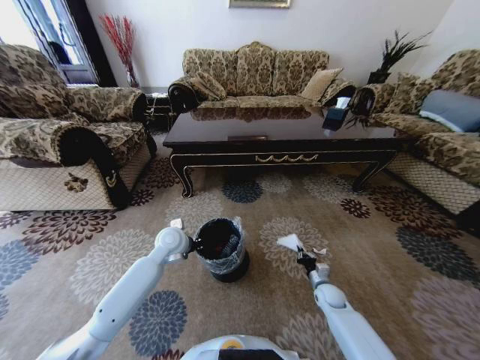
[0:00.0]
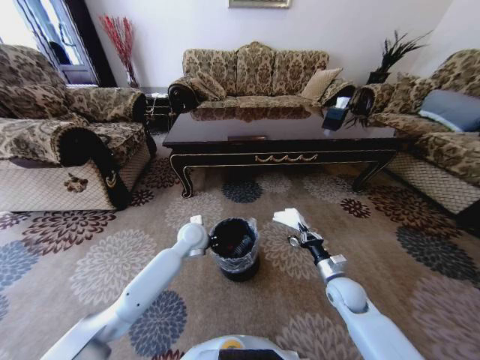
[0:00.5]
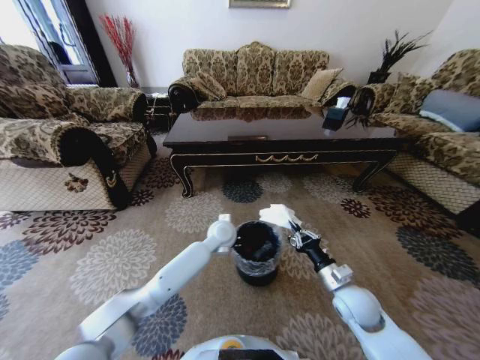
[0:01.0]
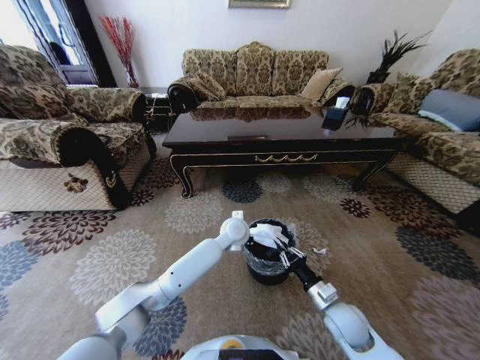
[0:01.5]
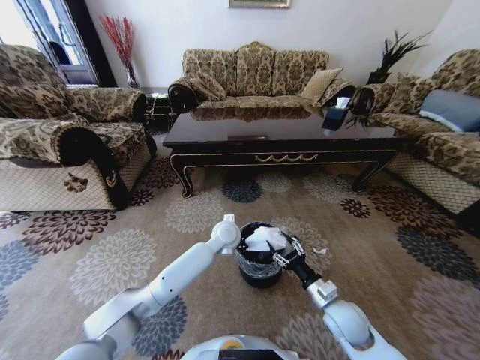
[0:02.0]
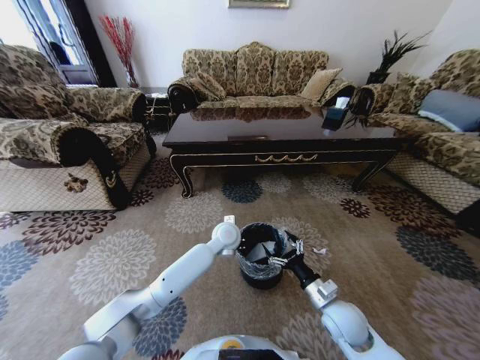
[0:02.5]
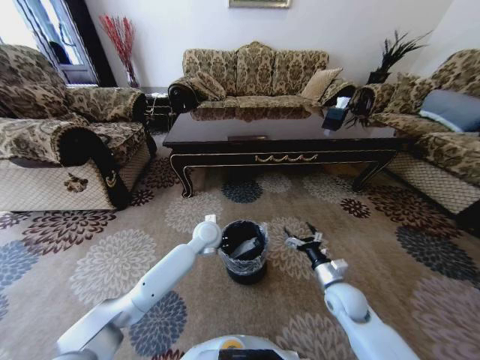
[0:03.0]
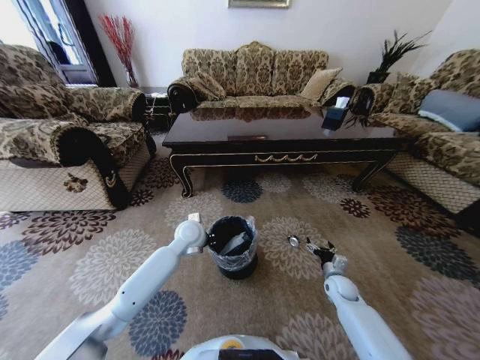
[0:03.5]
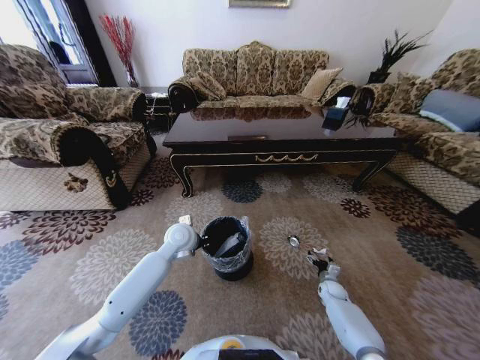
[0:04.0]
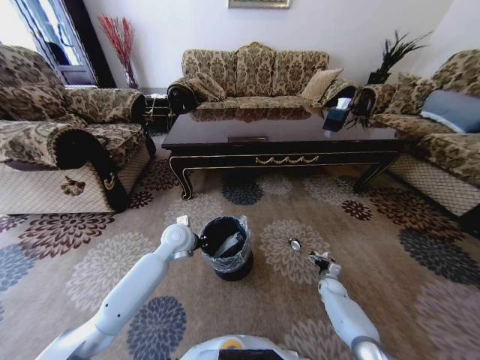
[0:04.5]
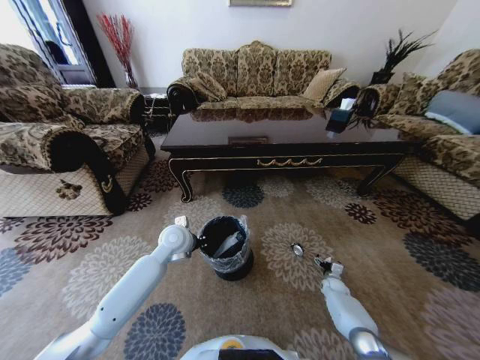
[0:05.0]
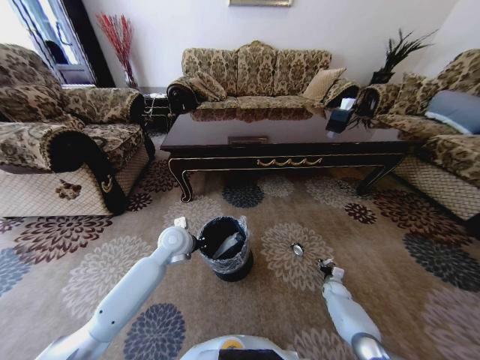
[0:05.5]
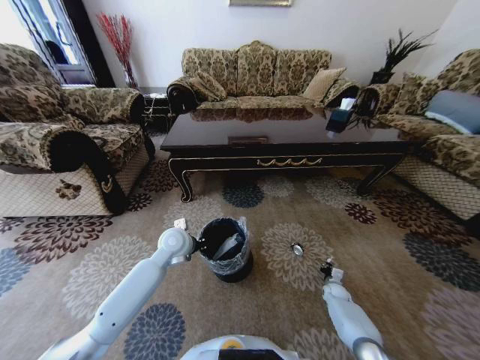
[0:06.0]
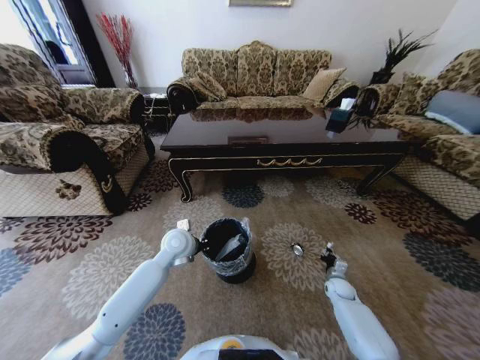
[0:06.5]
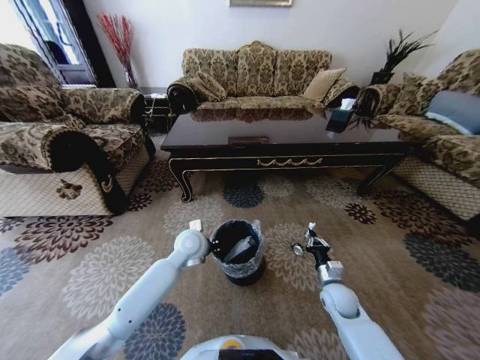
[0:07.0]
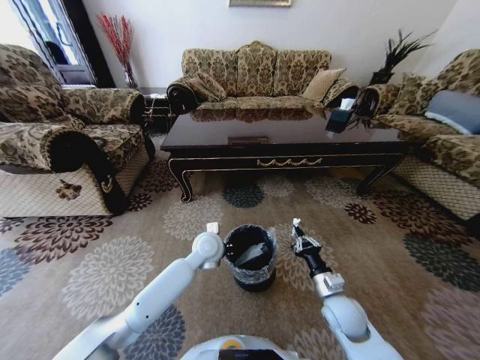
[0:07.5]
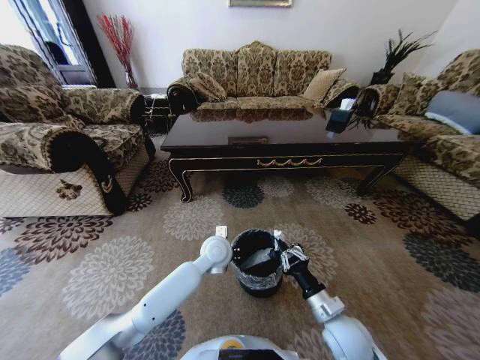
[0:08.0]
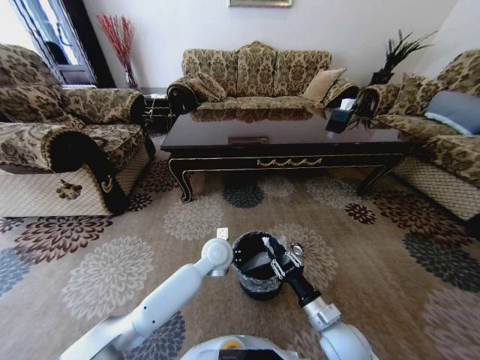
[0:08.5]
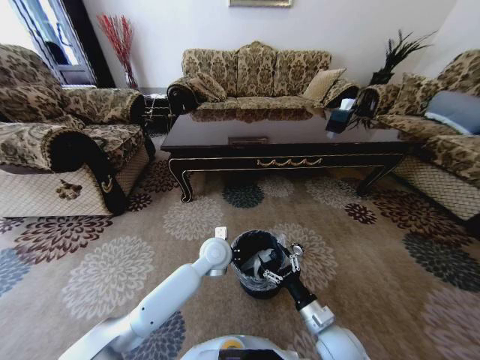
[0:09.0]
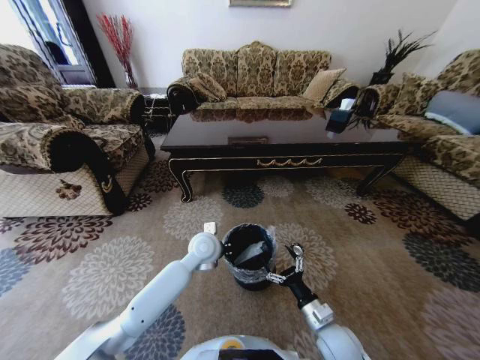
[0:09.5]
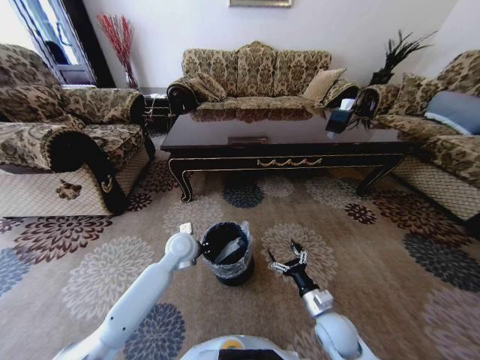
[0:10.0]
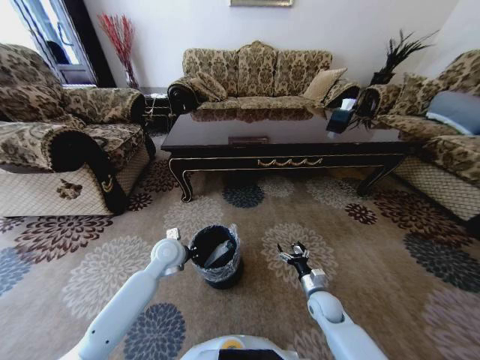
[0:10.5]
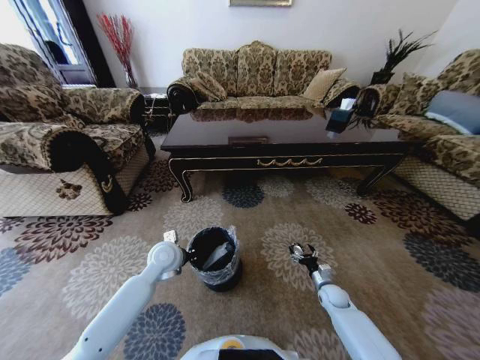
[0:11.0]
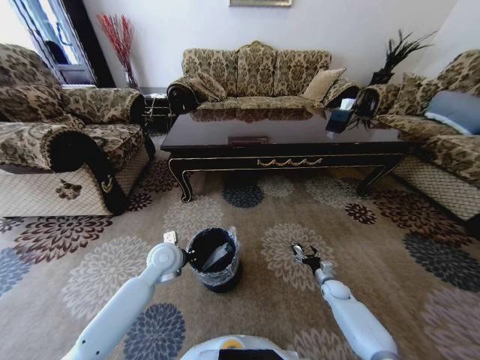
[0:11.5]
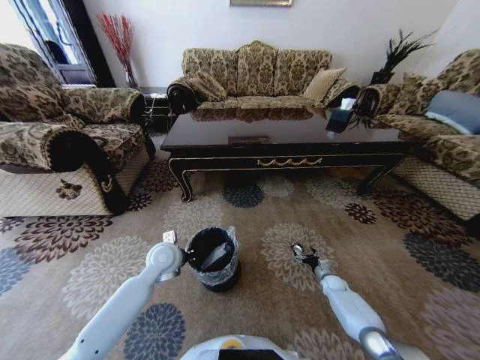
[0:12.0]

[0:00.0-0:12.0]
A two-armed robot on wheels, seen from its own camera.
Task of the whole recording: Move to the front of the table and pick up the trash from the floor, then place it into the trash bin.
0:00.0 to 0:02.0: The left gripper moves to the right, some 15 cm. The right gripper is displaced upward, backward and to the left by about 20 cm, and opens up.
0:02.0 to 0:04.0: The right gripper shifts some 30 cm downward, to the right and forward, and opens. The left gripper goes some 15 cm to the left.
0:04.0 to 0:06.0: The right gripper closes up.
0:06.0 to 0:08.0: The right gripper travels upward, to the left and backward by approximately 35 cm. The left gripper moves to the right, some 10 cm.
0:08.0 to 0:10.0: The right gripper heads downward, covering some 5 cm, and opens its fingers. The left gripper goes approximately 10 cm to the left.
0:10.0 to 0:12.0: The left gripper ends up roughly 5 cm from where it was, while the right gripper goes about 30 cm forward, downward and to the right.

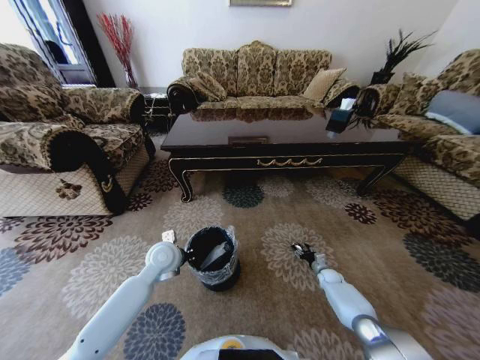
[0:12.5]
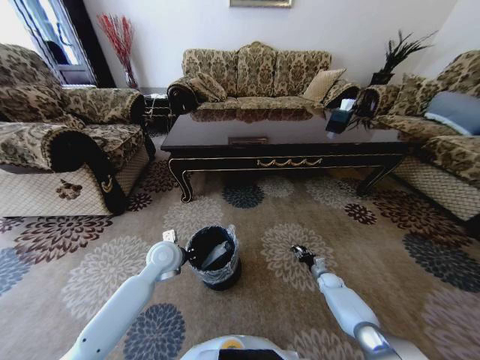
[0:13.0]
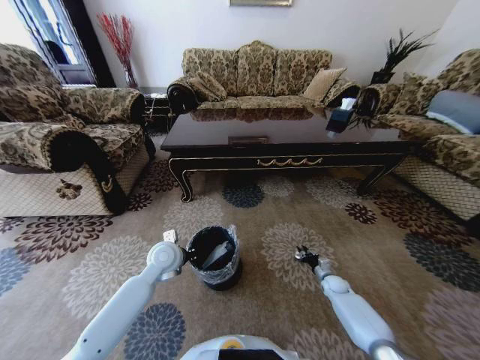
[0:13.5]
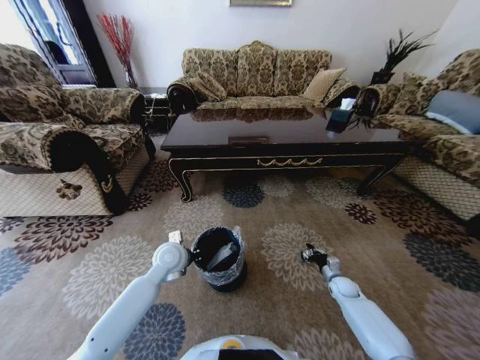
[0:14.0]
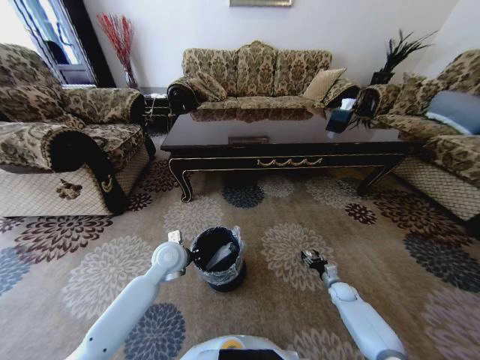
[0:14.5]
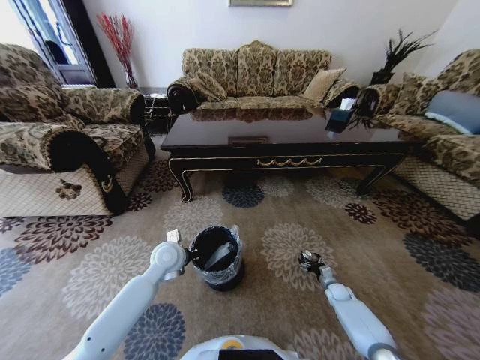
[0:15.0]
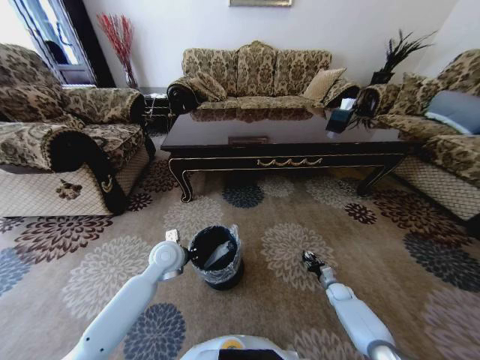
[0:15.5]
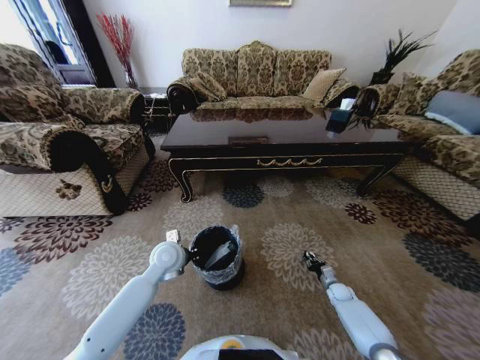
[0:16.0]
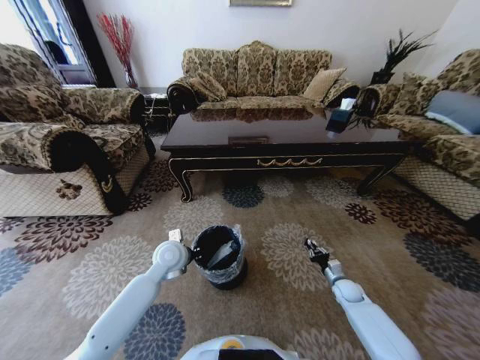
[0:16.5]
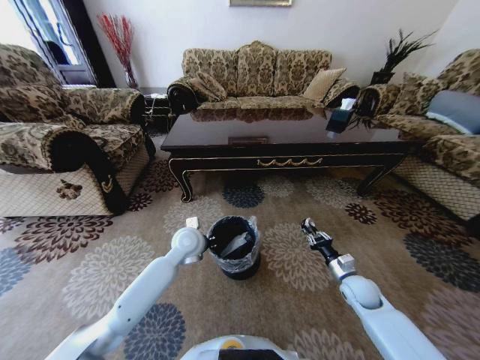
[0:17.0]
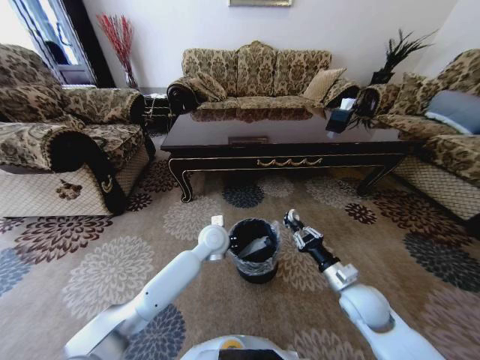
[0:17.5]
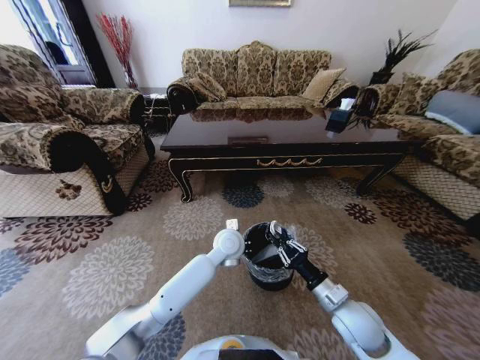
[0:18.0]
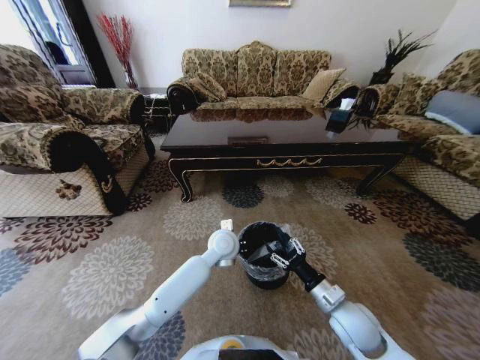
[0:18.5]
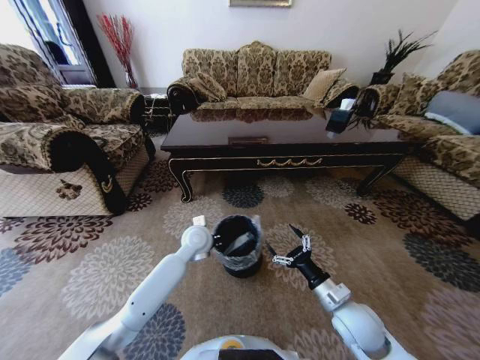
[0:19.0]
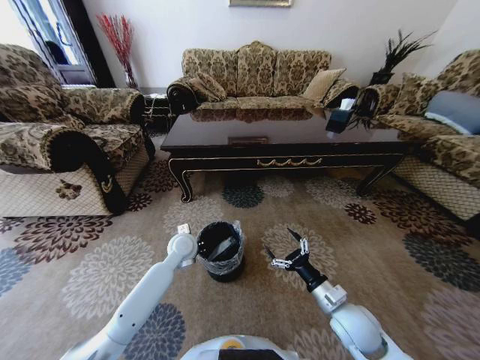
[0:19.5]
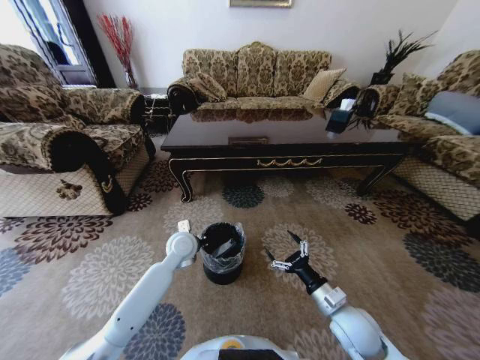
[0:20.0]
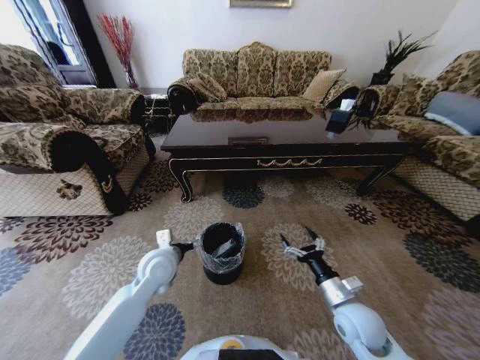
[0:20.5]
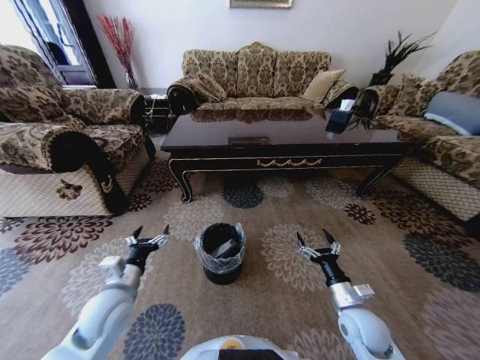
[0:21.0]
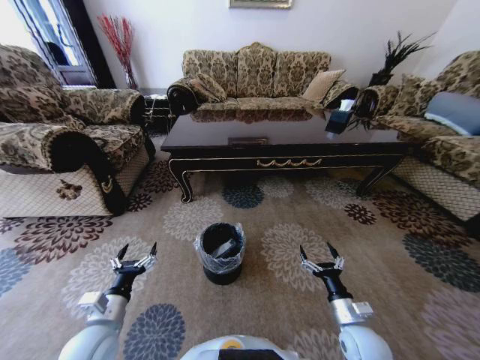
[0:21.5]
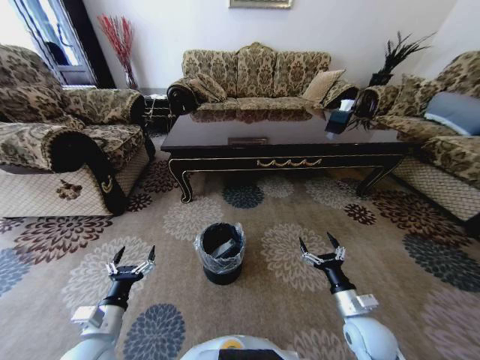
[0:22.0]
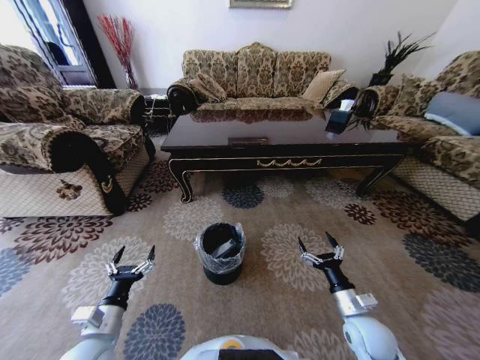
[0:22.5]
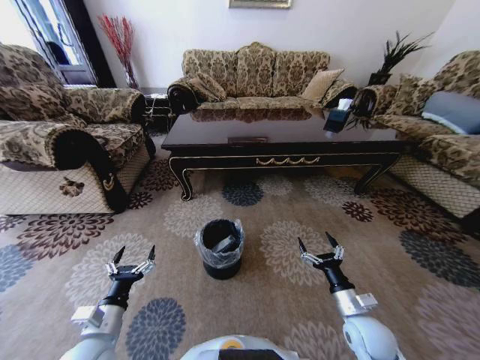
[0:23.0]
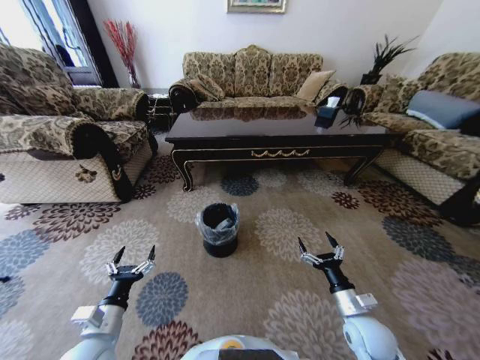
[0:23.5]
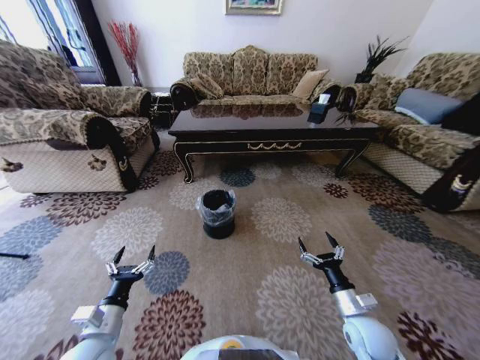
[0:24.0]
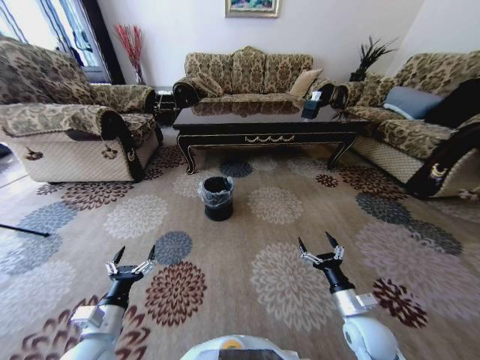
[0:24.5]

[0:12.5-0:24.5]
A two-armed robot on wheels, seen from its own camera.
Task of the whole recording: Move to the front of the table and pick up the trash from the floor, then place it into the trash bin.
0:12.5 to 0:14.5: The right gripper shifts about 5 cm backward, and closes, then reopens.
0:14.5 to 0:16.5: The right gripper closes its fingers.
0:16.5 to 0:18.5: The right gripper heads upward, to the left and backward, covering approximately 30 cm, and opens, while the left gripper goes roughly 15 cm to the right.
0:18.5 to 0:20.5: The right gripper opens its fingers. The left gripper is displaced to the left and backward by approximately 20 cm, and opens up.
0:20.5 to 0:22.5: The left gripper travels backward and to the left by approximately 20 cm.

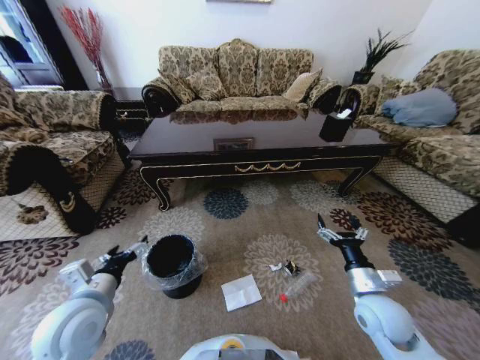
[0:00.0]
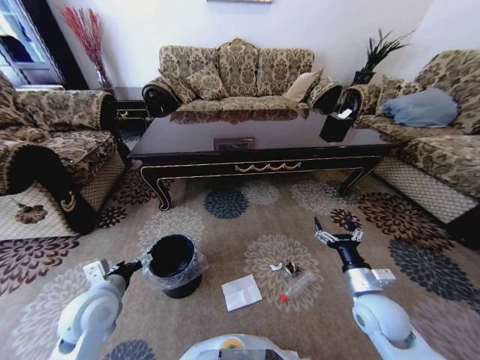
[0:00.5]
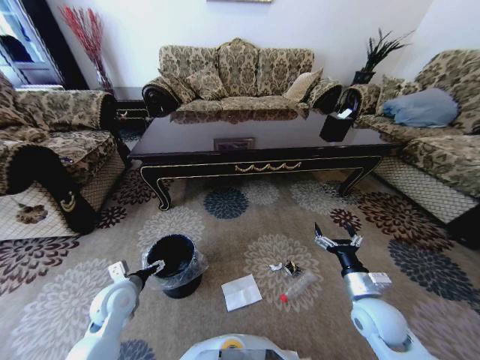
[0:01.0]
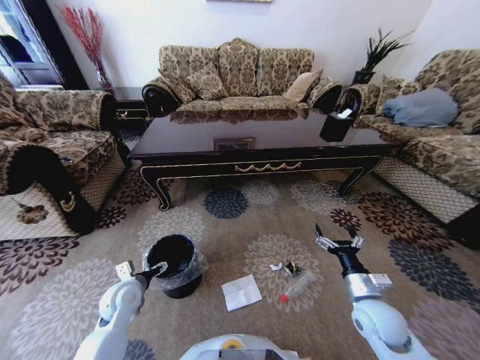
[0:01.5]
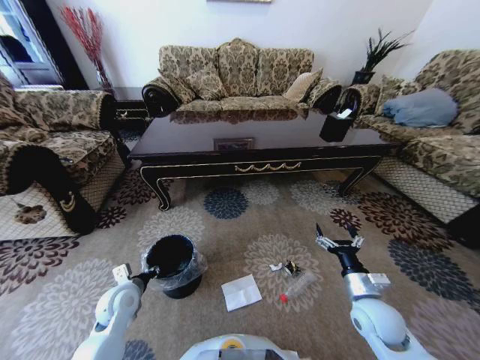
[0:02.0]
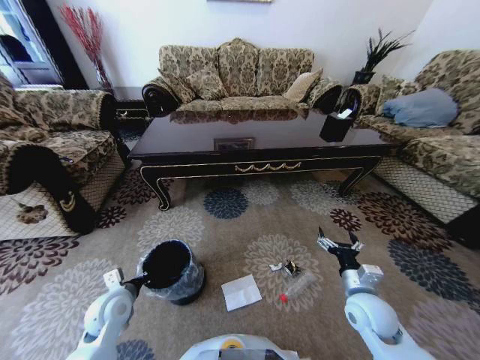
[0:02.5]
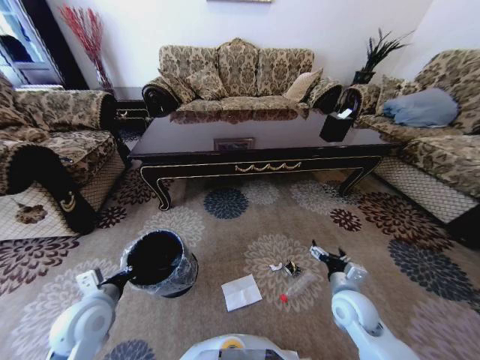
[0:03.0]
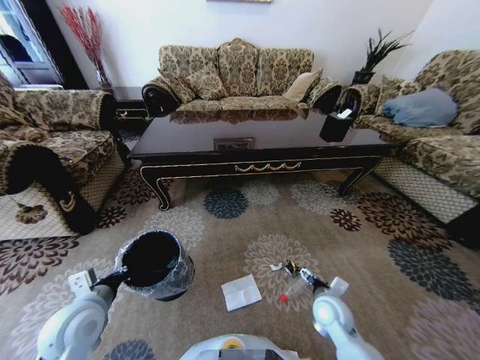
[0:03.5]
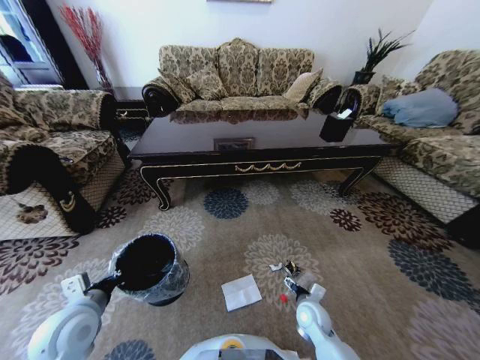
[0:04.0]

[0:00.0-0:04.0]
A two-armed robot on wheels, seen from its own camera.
Task of the whole recording: Move to the front of the table and pick up the trash from the floor, then place it into the trash bin.
0:00.0 to 0:02.0: The left gripper travels downward and forward by roughly 15 cm, and closes up.
0:02.0 to 0:04.0: The left gripper heads upward and backward, covering some 10 cm, and closes its fingers, while the right gripper is displaced downward and to the left by roughly 15 cm.
